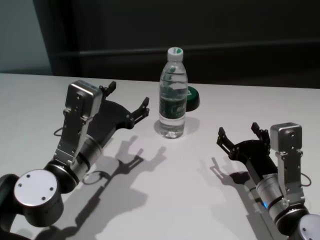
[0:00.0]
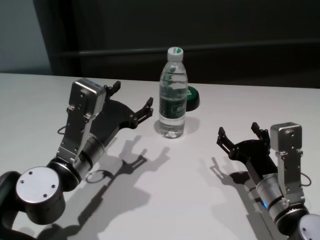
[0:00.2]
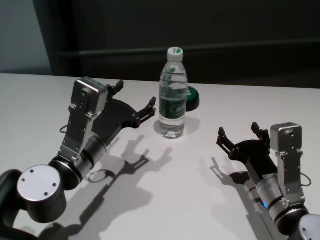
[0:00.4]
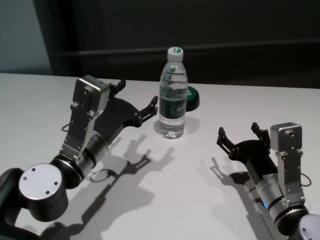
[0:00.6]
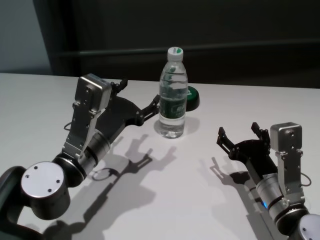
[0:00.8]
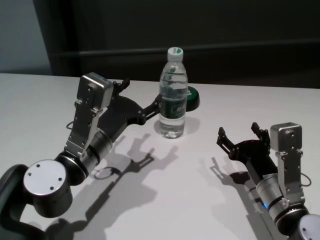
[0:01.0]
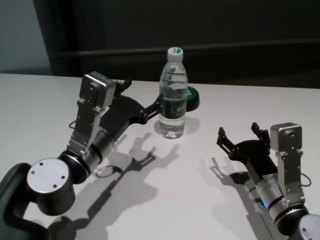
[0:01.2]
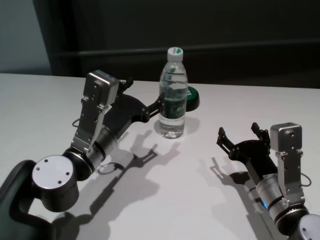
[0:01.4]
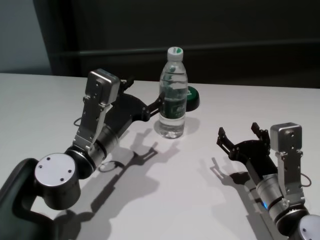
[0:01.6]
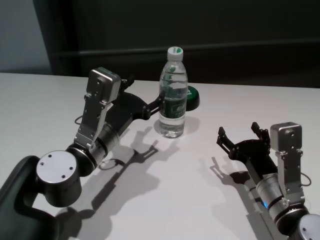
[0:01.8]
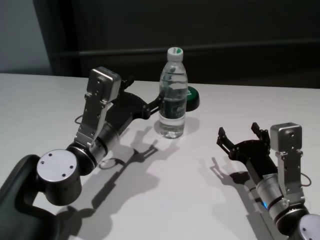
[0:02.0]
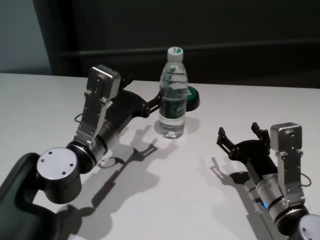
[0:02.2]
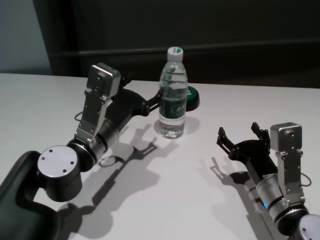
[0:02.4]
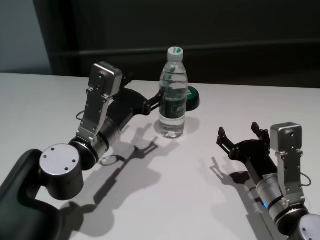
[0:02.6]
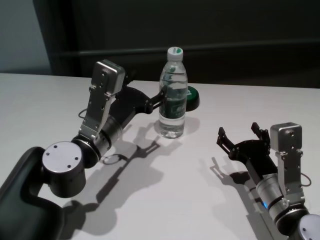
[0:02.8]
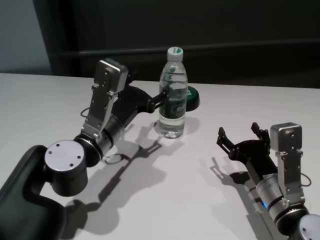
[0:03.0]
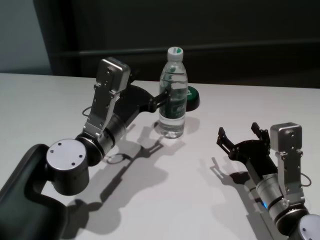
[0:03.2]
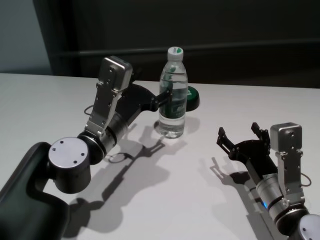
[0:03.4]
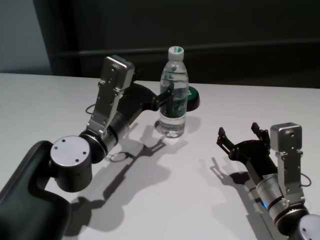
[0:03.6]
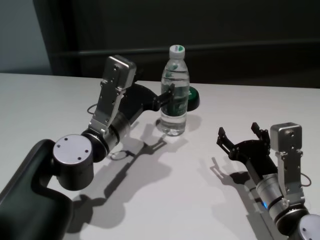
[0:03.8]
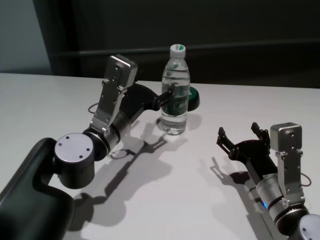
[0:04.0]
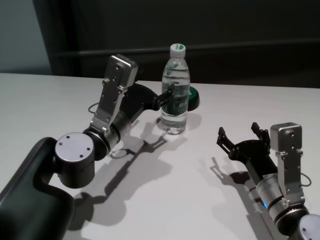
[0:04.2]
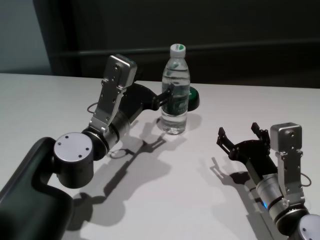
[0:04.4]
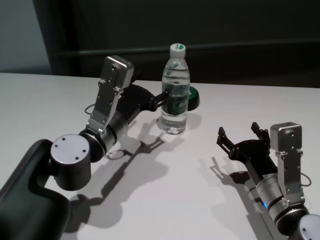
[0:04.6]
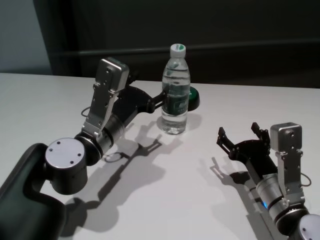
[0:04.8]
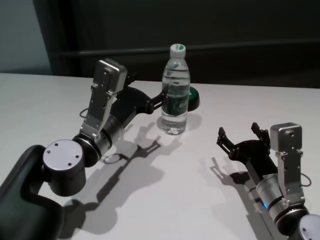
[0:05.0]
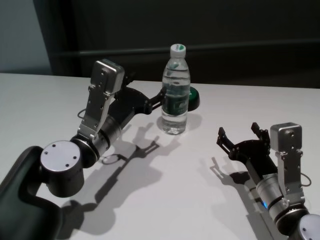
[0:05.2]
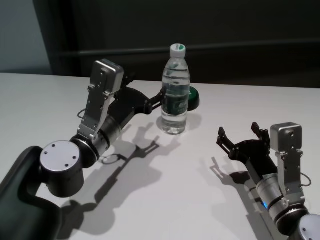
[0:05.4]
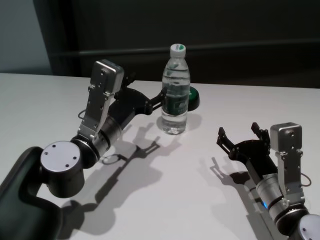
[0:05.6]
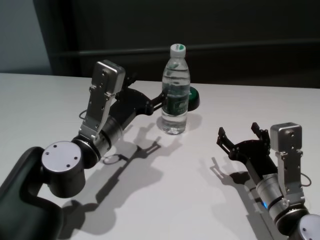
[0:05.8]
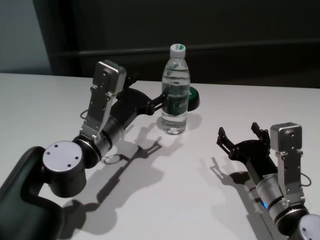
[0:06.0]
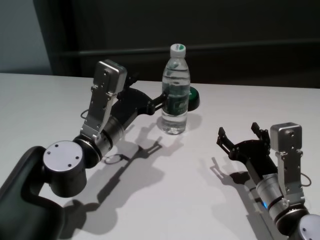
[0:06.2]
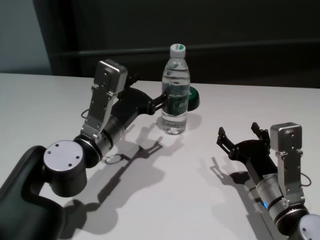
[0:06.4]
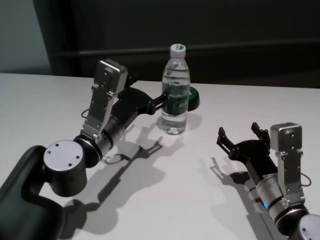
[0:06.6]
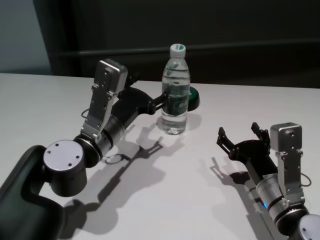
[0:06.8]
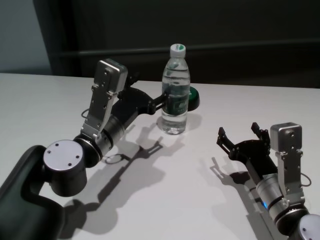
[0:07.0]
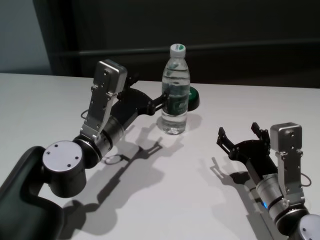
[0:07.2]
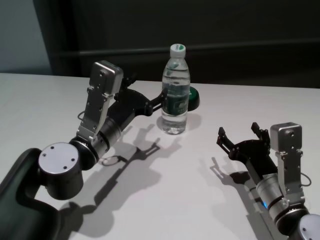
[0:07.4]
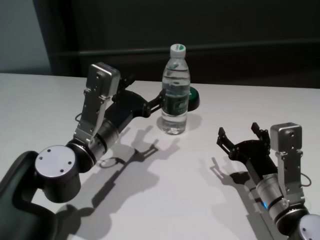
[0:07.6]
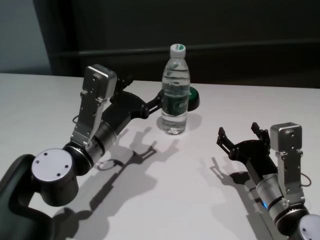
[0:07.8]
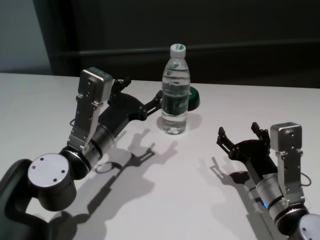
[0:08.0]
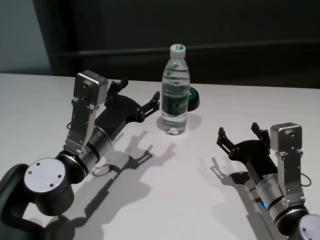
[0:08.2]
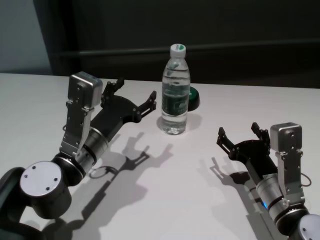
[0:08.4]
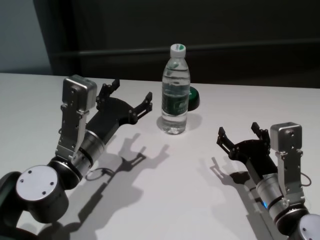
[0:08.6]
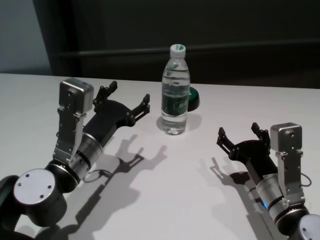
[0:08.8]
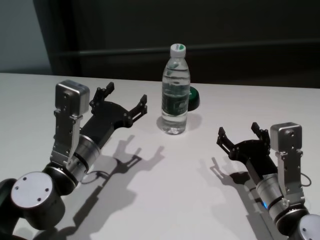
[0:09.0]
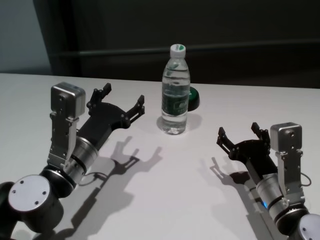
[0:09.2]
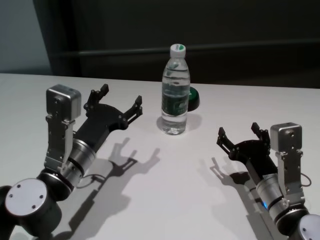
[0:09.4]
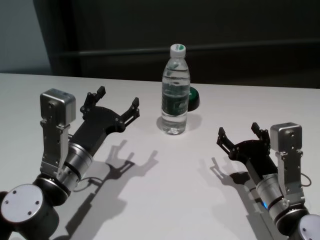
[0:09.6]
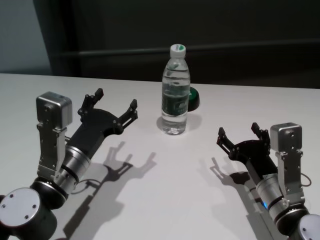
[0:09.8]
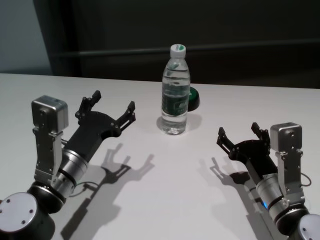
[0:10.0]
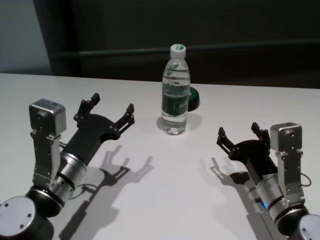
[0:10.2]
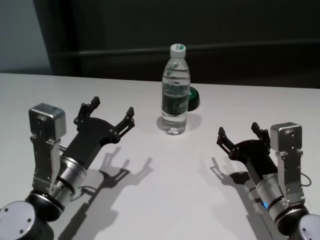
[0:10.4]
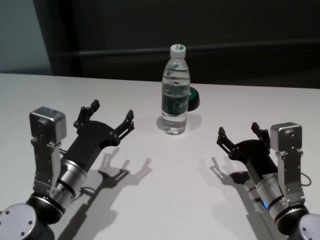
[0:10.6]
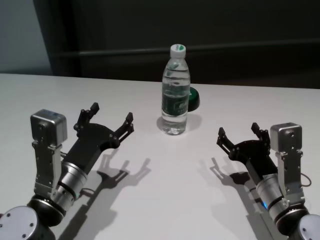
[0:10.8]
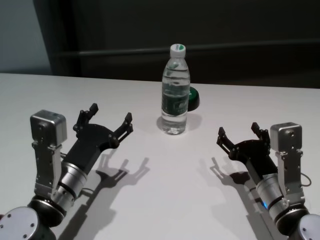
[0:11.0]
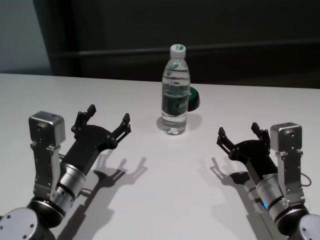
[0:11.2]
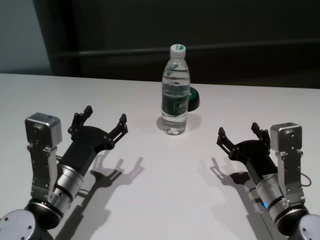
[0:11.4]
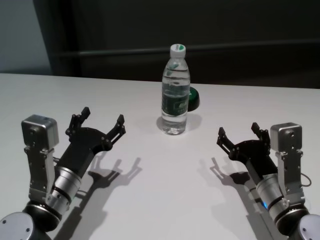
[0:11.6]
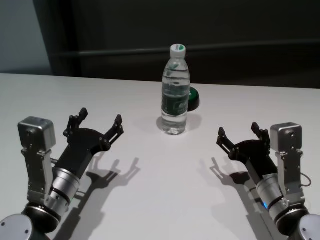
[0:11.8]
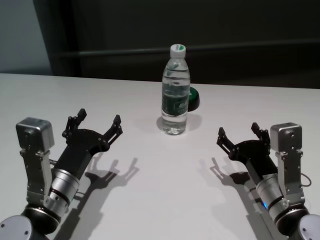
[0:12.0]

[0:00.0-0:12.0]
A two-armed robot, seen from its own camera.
Task of the whole recording: return to a safe position after touching an obstacle with your arm on the white table.
Step, 0:00.0 to 0:08.2: Touch the bottle with left gripper.

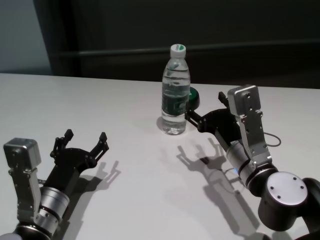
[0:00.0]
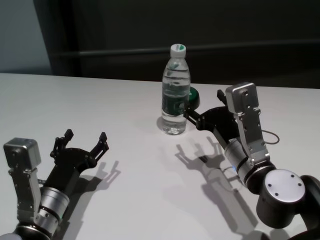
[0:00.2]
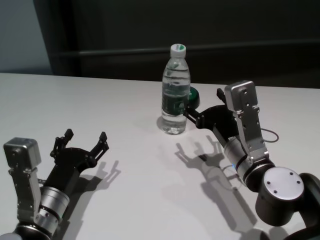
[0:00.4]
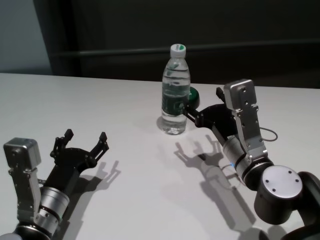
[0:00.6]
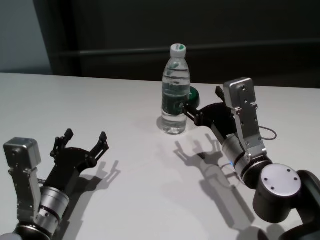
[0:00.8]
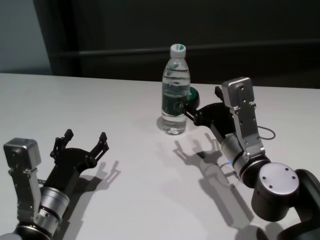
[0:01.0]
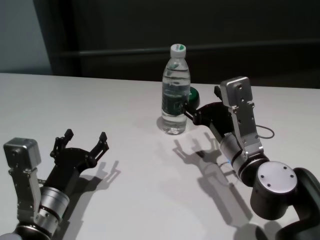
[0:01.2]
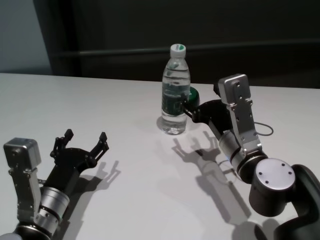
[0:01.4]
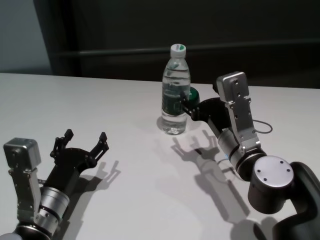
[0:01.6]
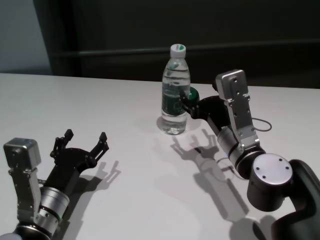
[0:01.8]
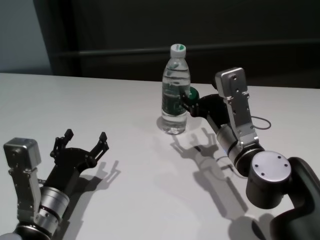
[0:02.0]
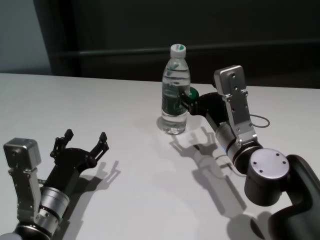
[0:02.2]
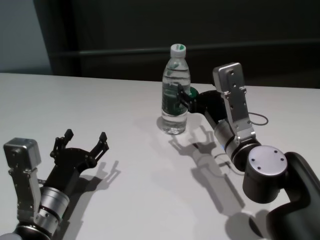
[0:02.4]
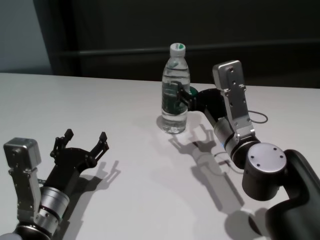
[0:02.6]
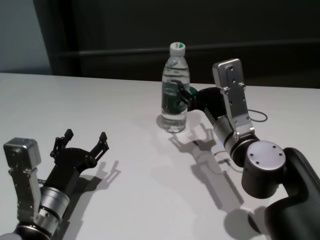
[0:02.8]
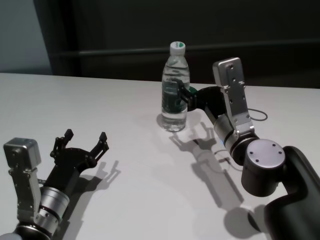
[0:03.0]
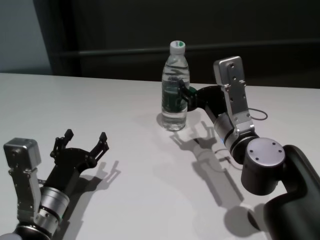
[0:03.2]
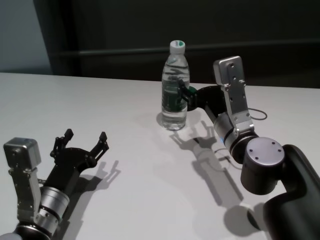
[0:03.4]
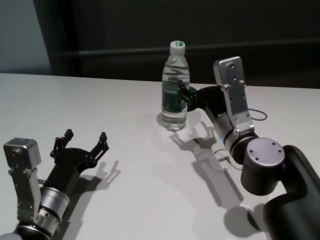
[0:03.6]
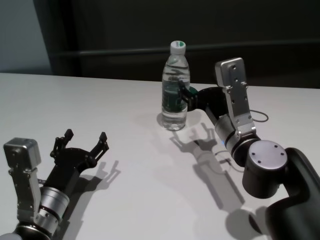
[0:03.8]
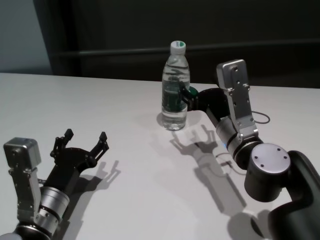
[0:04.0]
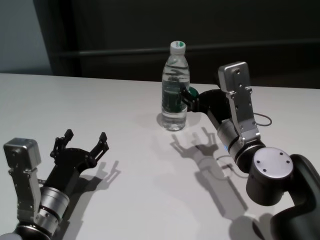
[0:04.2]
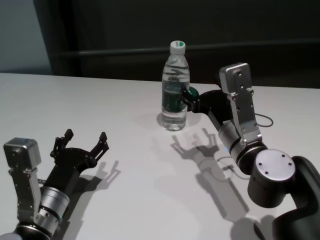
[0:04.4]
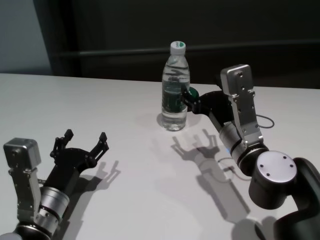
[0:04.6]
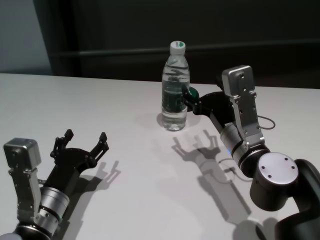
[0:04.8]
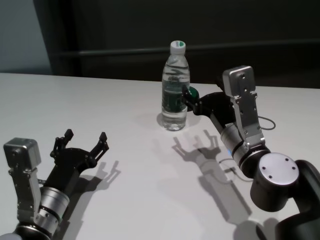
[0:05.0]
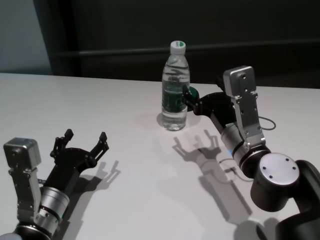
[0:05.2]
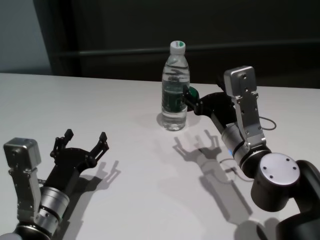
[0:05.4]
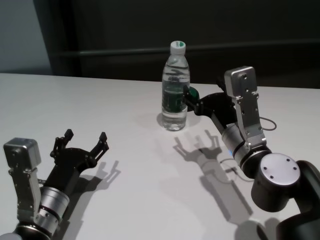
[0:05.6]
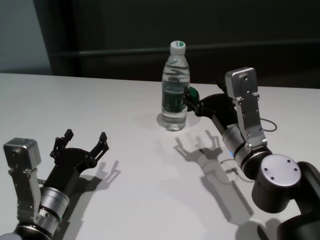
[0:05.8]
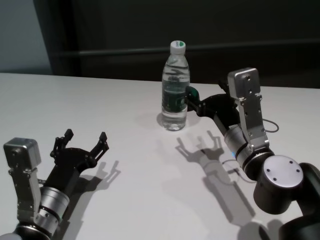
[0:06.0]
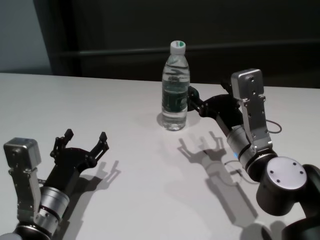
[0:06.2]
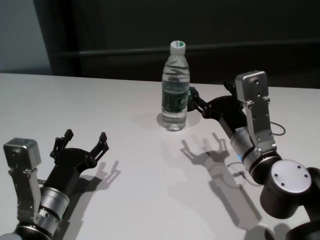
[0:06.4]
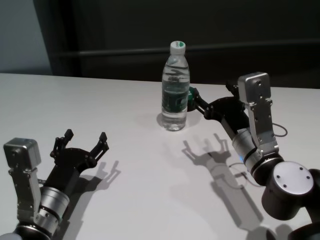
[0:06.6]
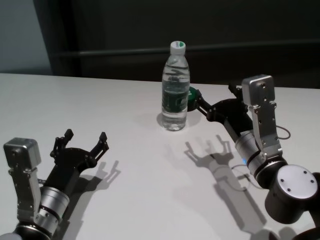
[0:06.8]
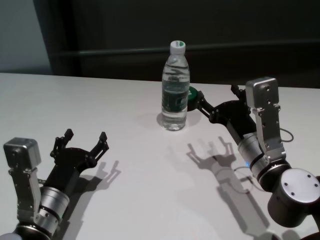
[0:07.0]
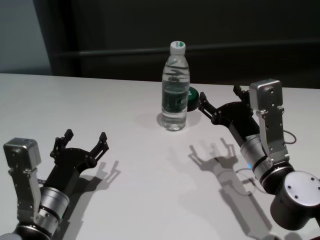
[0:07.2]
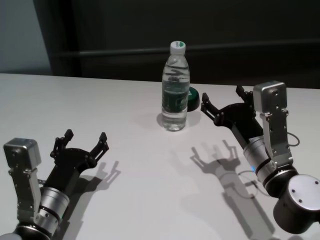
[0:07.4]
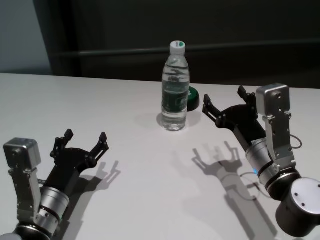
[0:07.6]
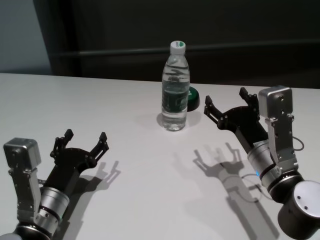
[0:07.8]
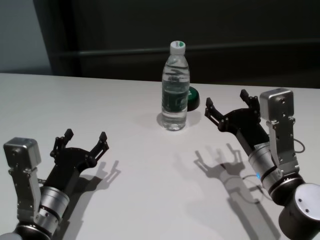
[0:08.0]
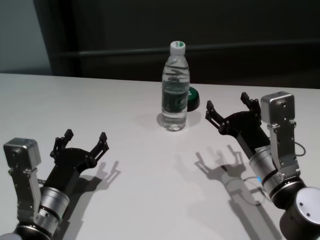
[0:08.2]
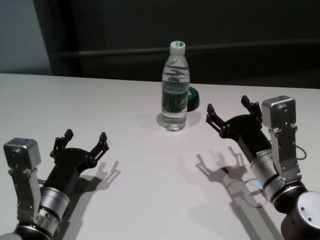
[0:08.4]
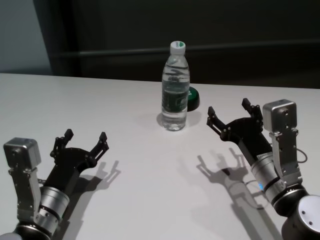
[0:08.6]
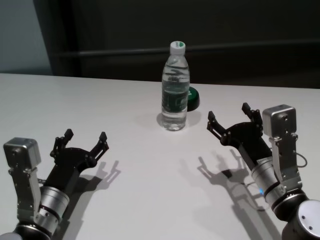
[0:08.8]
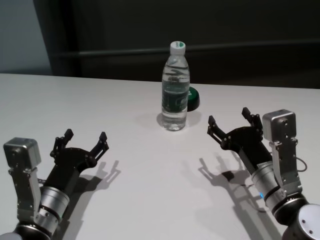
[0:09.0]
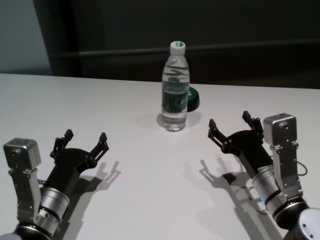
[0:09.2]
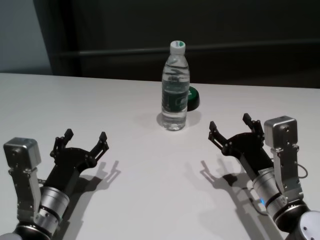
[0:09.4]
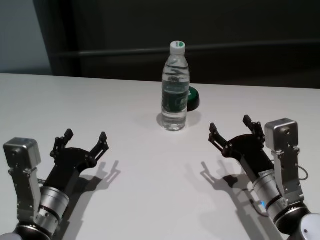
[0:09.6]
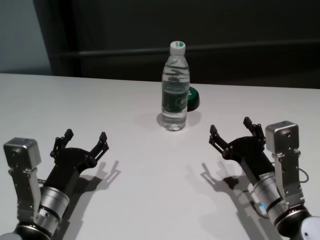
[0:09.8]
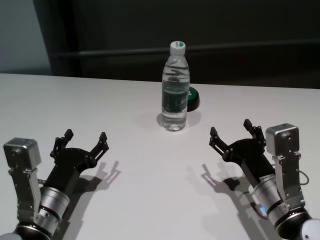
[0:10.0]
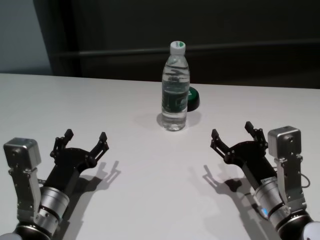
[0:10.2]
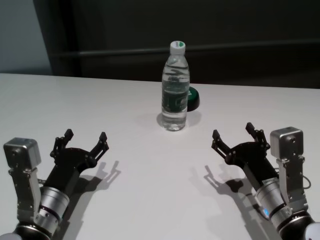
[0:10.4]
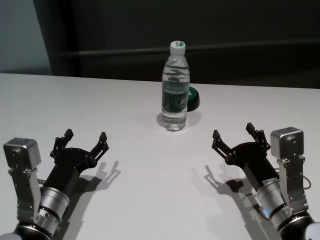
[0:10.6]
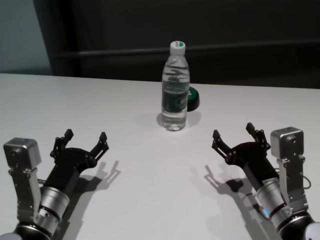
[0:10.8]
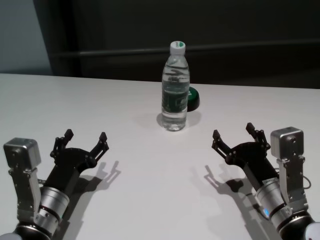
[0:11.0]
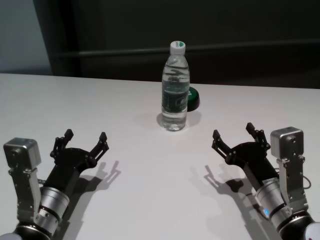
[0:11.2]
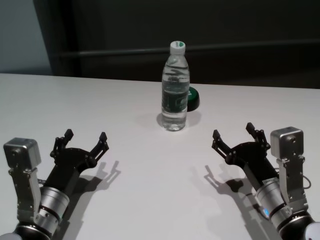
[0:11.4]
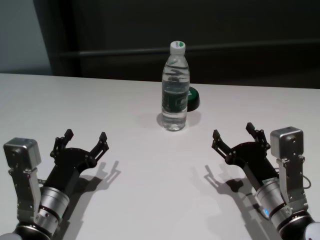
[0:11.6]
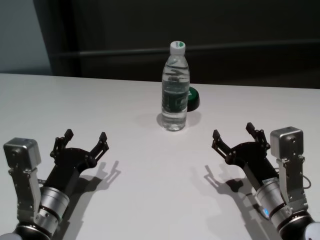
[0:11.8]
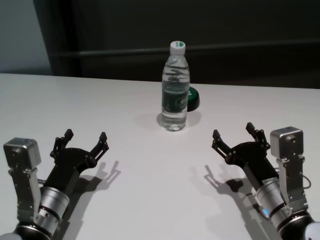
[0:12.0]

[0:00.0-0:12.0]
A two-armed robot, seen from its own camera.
Task of the whole recording: return to a safe position after touching an obstacle with your arm on the white table.
Step, 0:00.0 to 0:06.8: Touch the bottle with right gripper.
